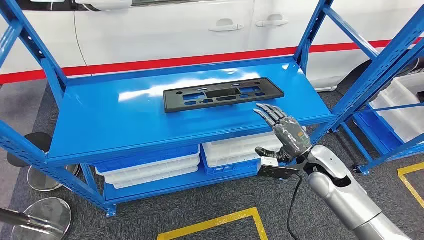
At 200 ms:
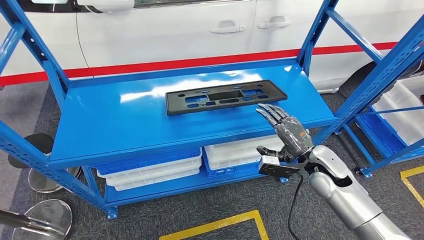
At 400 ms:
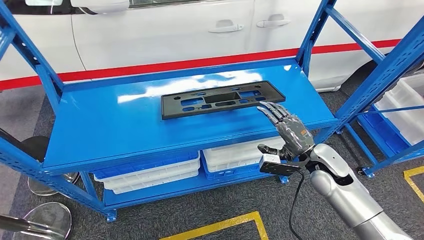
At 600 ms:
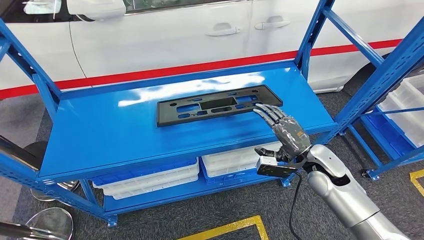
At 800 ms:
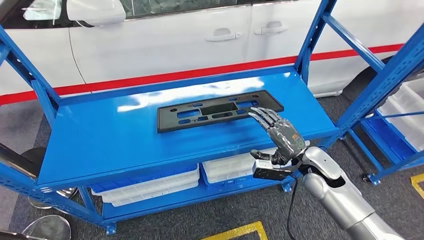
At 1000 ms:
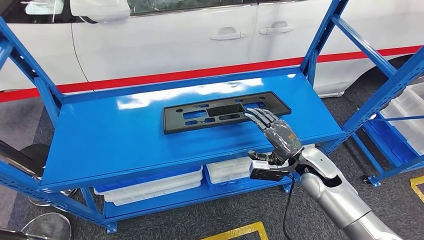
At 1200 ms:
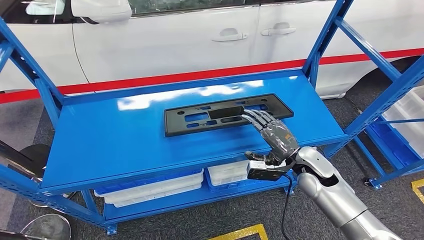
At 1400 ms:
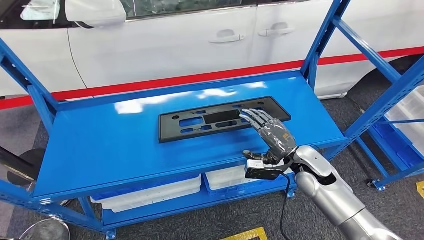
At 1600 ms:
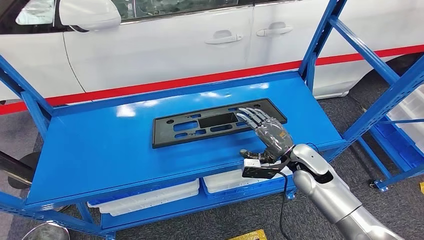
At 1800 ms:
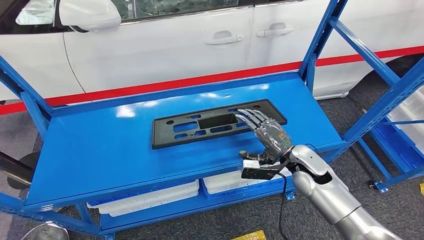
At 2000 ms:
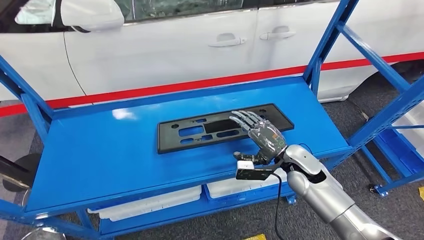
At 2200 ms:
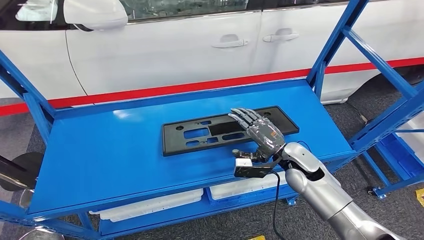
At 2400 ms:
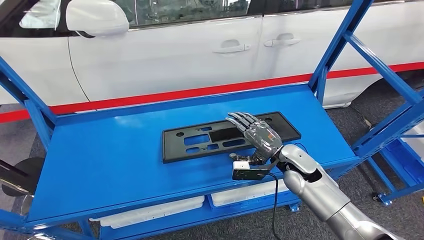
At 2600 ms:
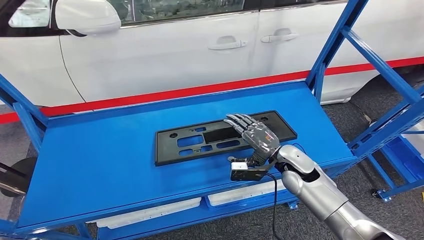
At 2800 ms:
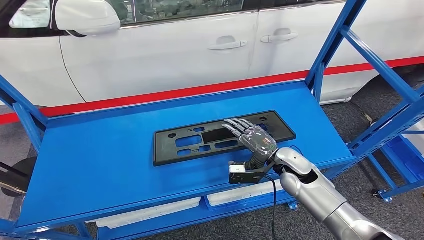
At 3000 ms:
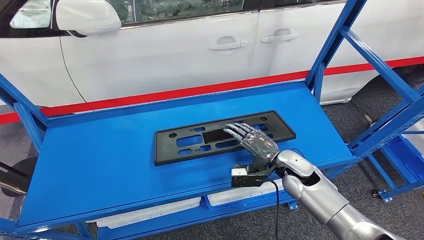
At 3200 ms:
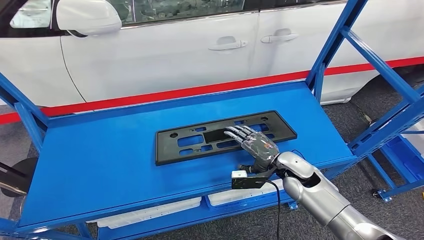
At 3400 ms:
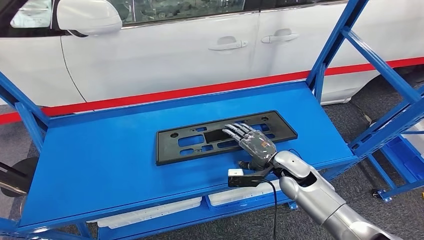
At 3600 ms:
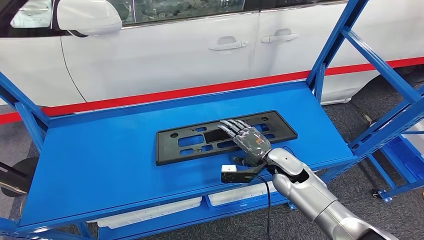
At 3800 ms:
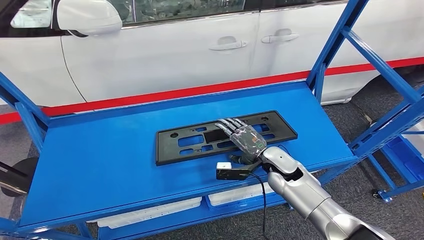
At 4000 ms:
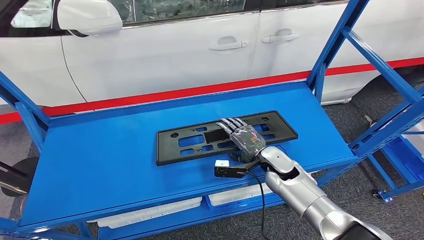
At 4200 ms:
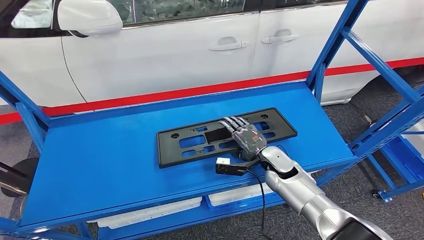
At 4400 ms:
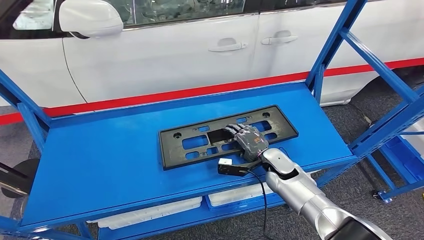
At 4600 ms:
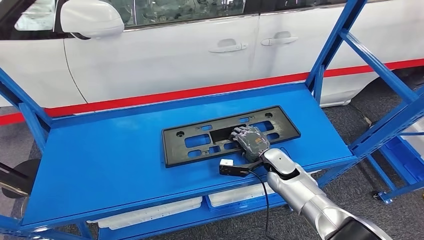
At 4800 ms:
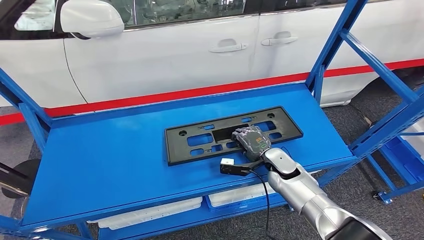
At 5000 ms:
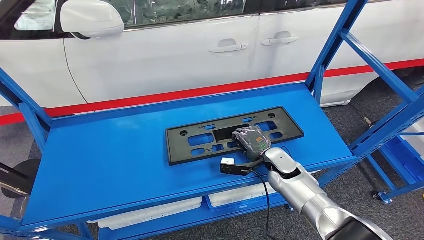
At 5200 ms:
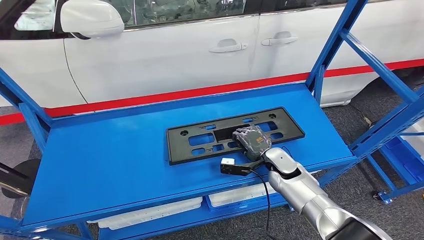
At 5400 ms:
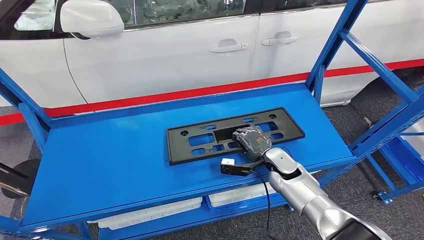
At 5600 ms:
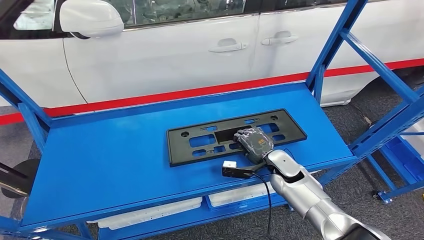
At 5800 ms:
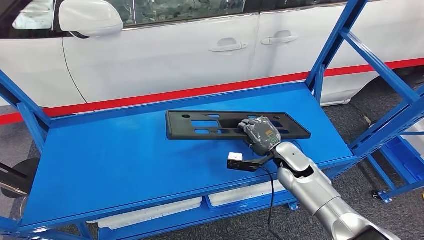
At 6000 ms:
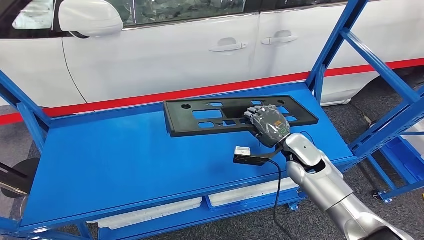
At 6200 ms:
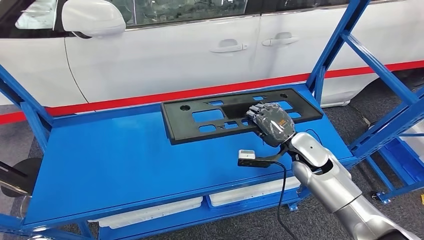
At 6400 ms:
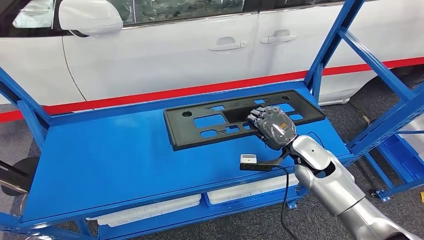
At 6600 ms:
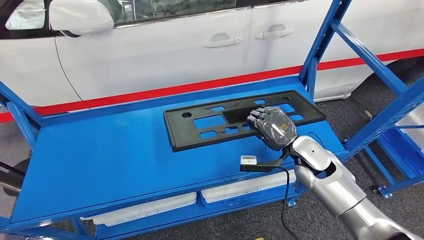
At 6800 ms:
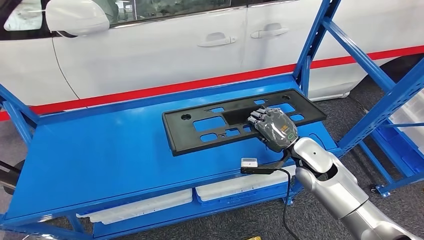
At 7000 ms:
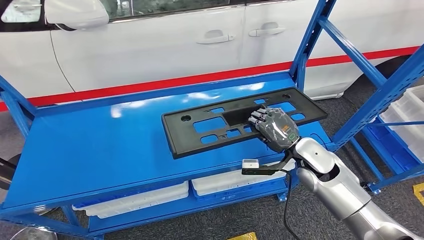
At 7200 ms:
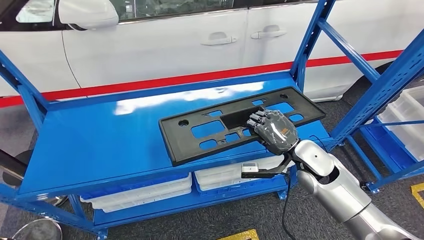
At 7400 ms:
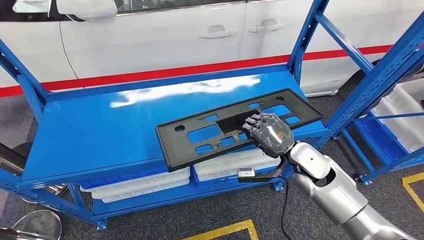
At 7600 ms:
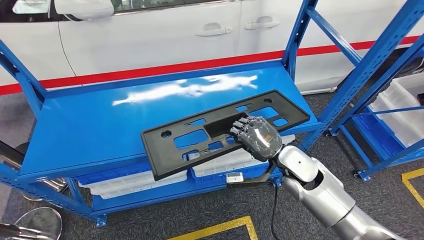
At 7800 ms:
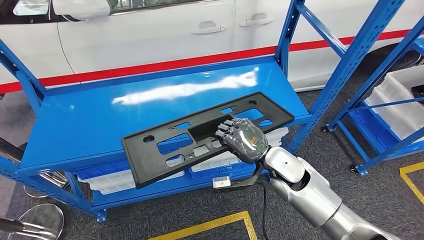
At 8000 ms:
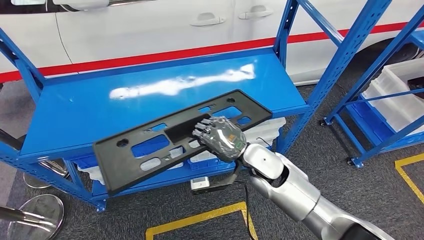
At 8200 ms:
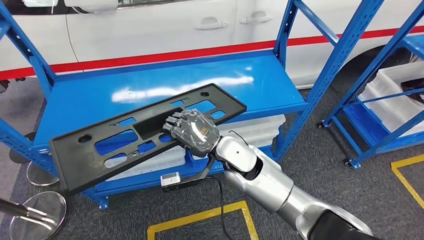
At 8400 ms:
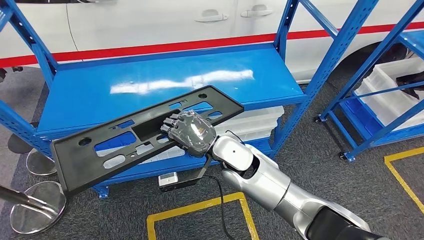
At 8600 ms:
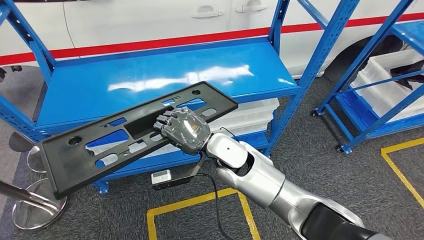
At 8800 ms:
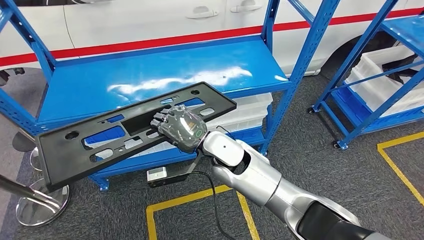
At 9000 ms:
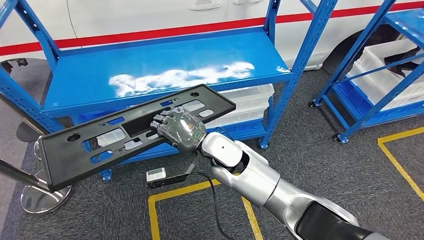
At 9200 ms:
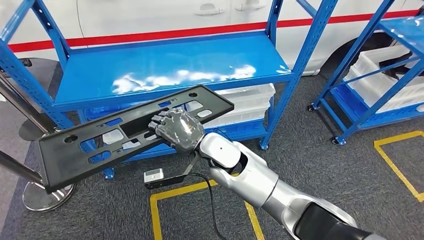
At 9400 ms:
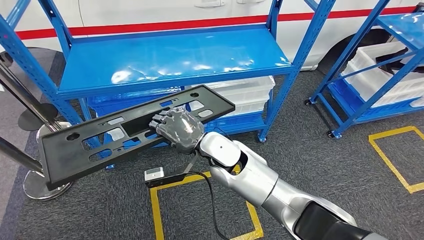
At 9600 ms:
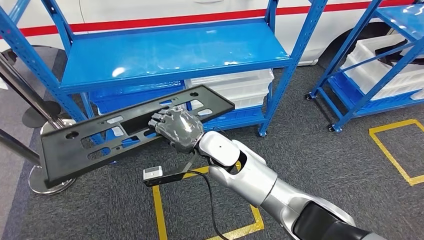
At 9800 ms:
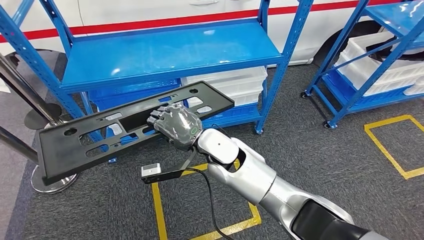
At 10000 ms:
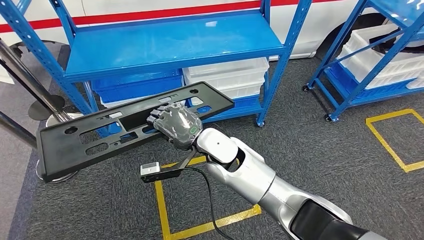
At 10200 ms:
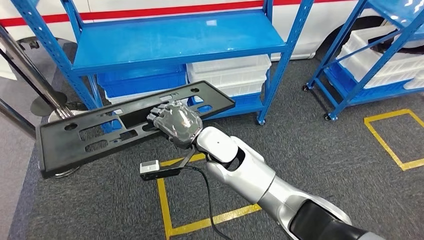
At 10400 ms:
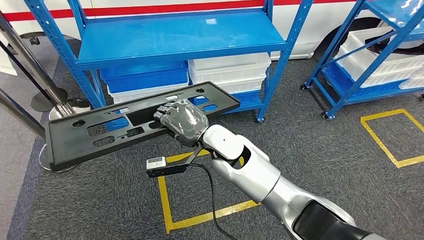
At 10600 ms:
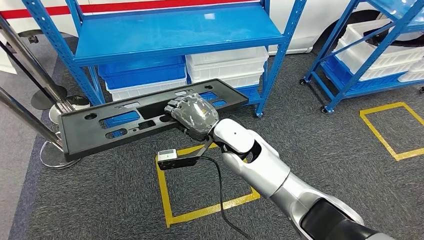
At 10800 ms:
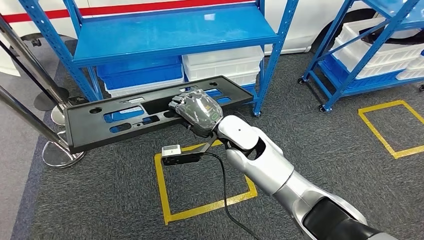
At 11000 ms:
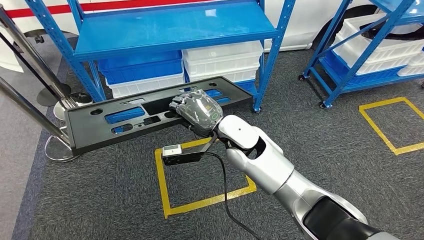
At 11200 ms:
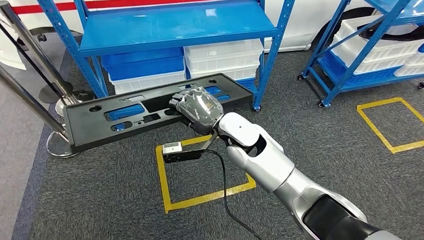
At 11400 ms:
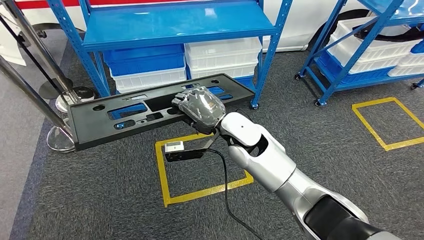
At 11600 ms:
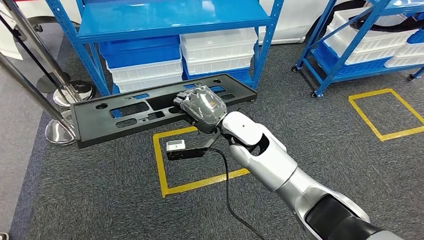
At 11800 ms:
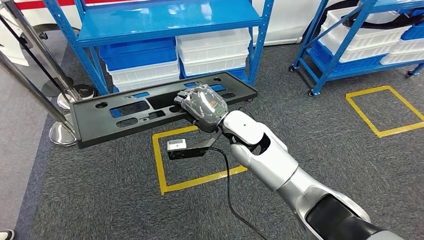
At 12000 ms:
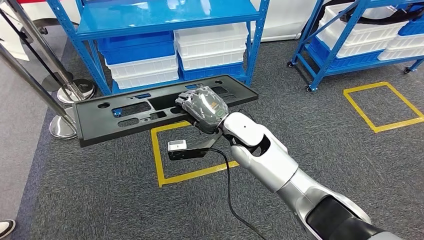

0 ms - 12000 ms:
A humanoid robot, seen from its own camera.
Step, 0 ms - 9600 ms: Pick up the large material from the shelf.
3000 ms - 4400 ms: The right hand changes place by approximately 5 cm.
4400 ms - 6000 ms: The right hand heads upward, covering some 10 cm.

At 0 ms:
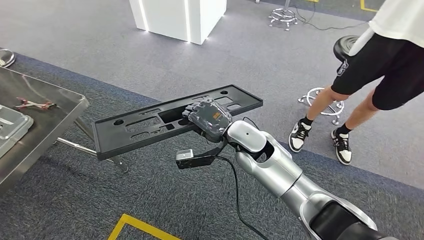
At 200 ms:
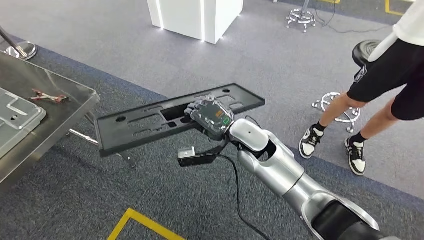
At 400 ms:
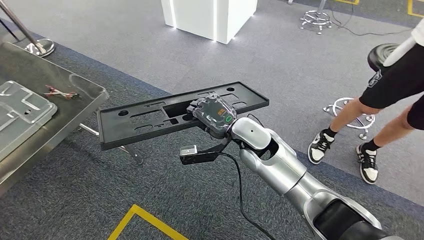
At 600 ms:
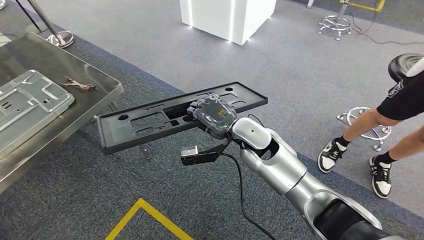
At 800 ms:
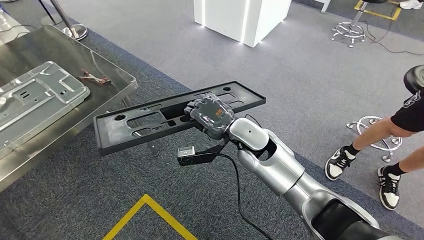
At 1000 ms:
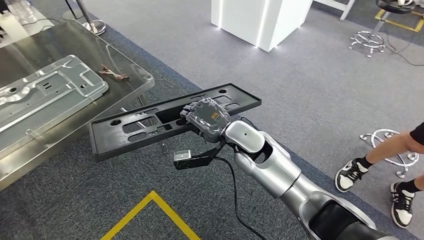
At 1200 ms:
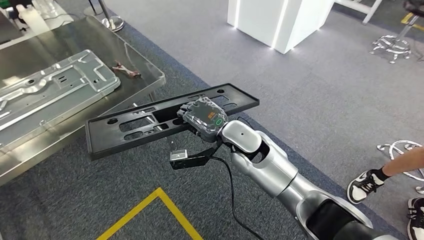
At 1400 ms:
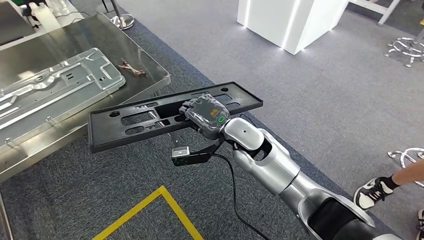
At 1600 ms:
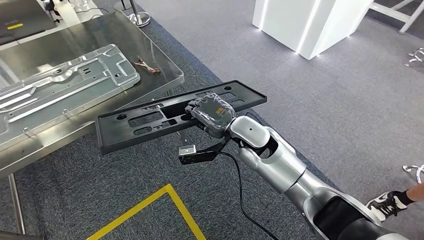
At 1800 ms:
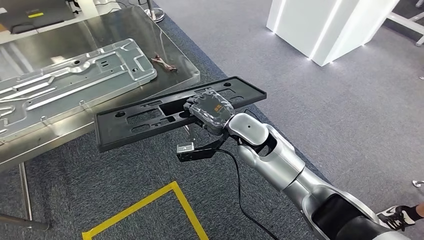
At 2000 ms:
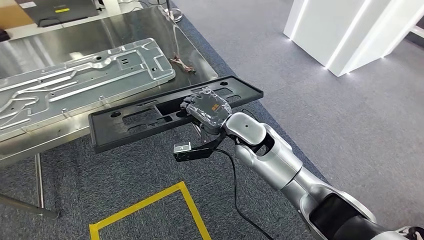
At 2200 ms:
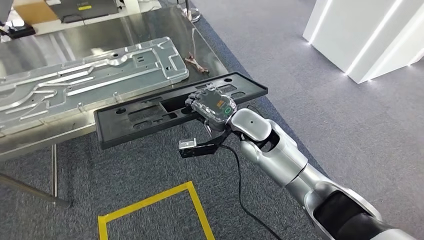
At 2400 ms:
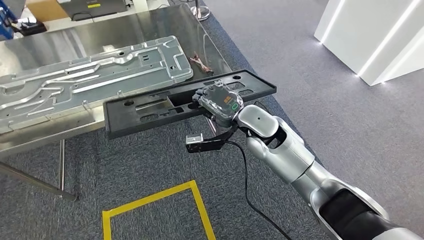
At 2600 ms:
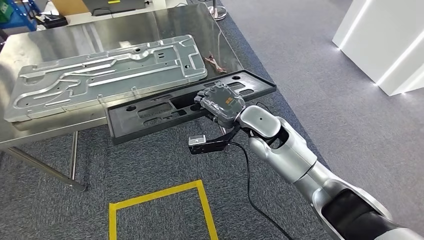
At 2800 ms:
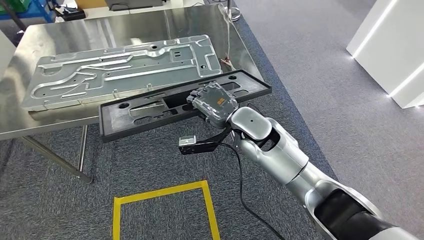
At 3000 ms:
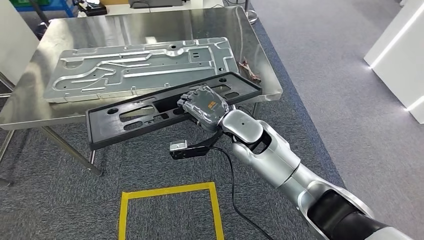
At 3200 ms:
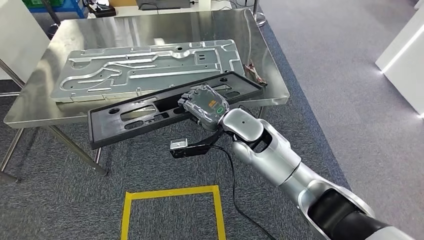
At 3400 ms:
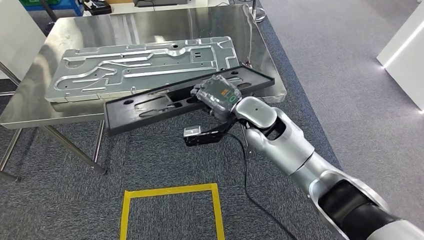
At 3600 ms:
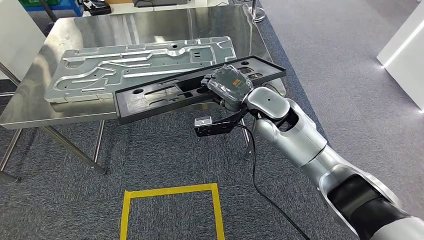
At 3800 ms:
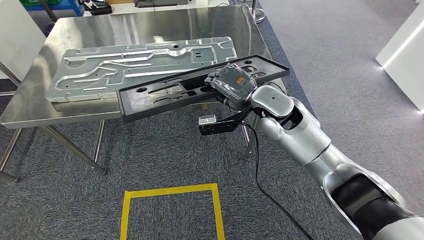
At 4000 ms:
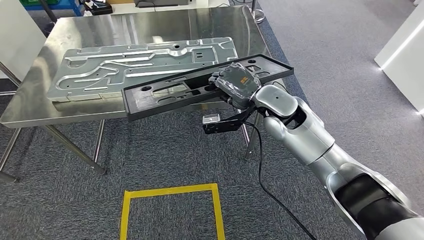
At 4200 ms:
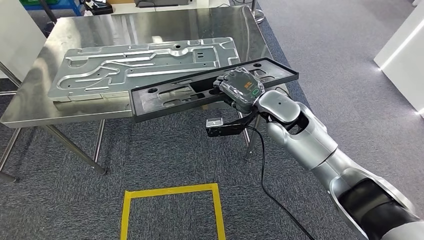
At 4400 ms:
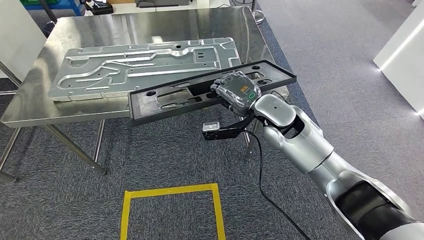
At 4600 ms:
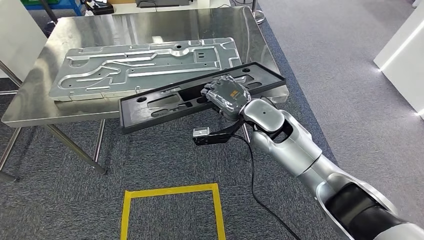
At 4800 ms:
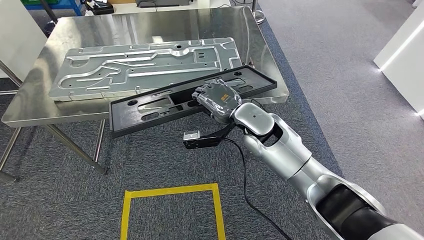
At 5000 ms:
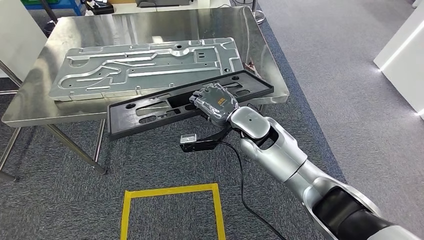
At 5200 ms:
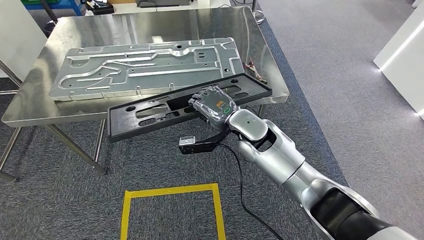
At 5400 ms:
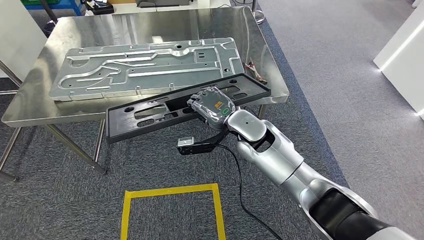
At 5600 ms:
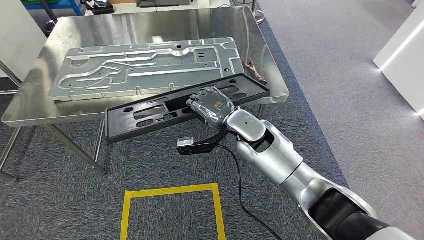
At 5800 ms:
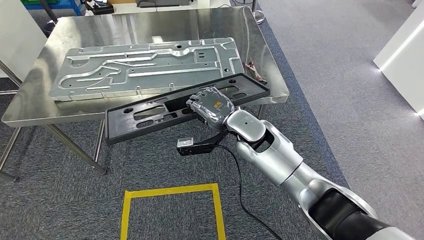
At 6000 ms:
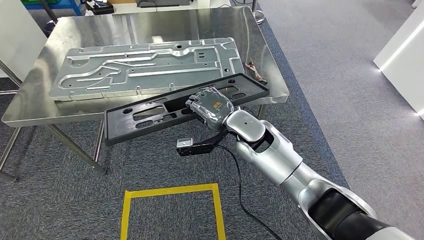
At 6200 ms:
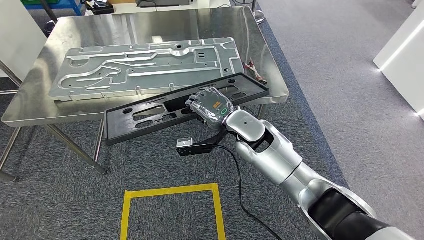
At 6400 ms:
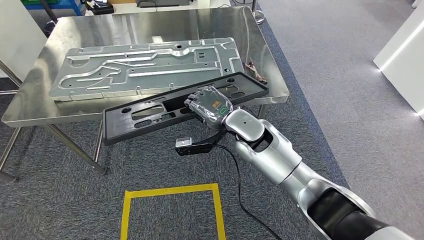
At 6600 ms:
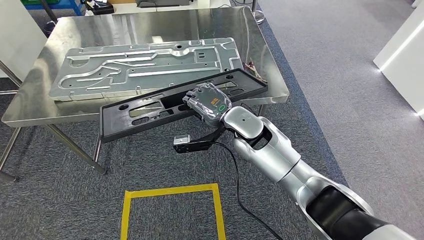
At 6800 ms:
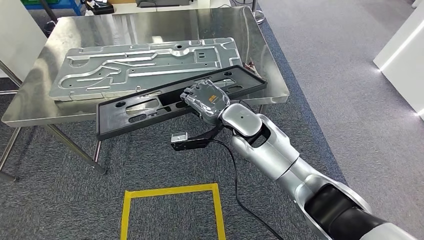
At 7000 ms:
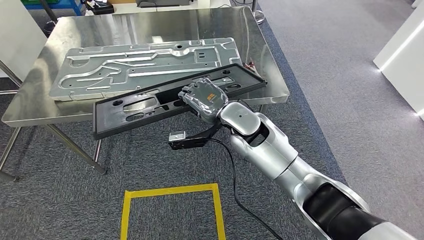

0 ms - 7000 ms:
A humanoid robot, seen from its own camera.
Step, 0 ms - 2800 ms: Move the large material to the workbench.
5600 ms - 7000 ms: The hands make only small movements.
